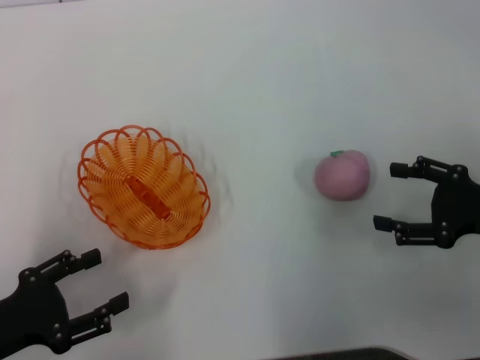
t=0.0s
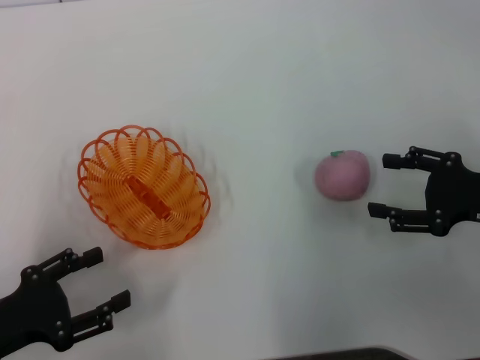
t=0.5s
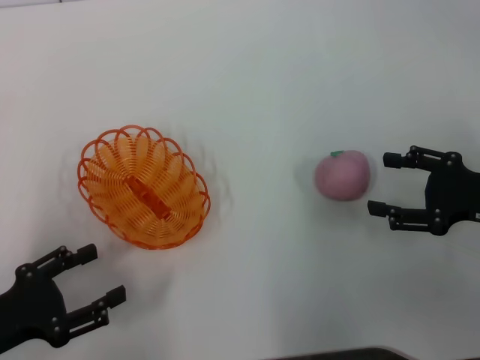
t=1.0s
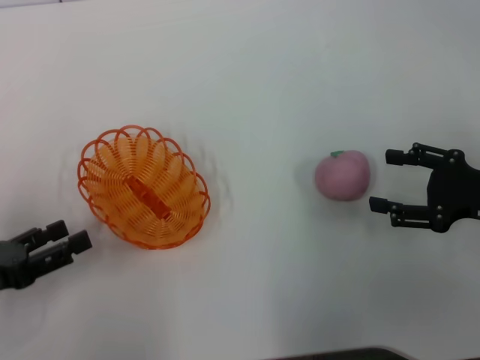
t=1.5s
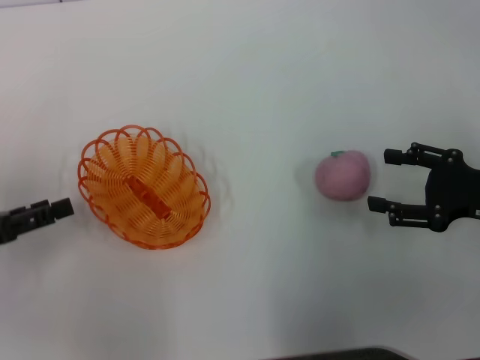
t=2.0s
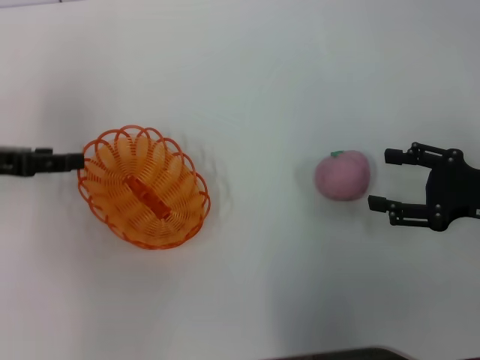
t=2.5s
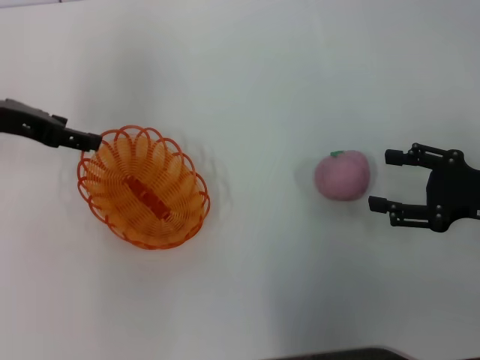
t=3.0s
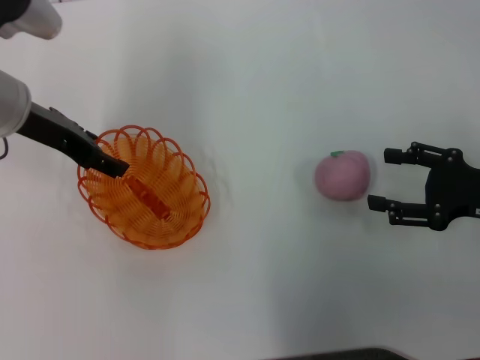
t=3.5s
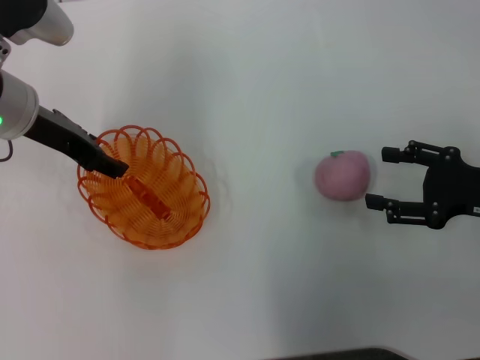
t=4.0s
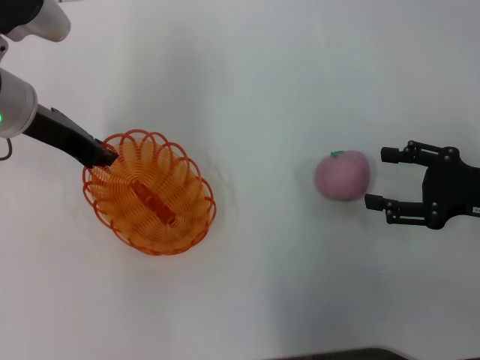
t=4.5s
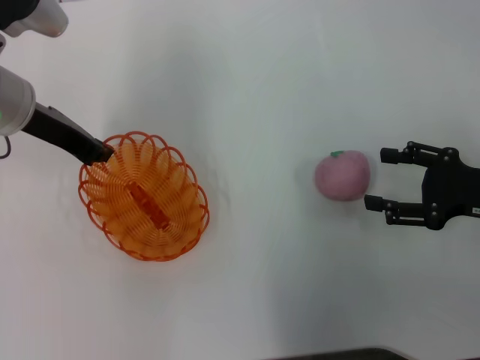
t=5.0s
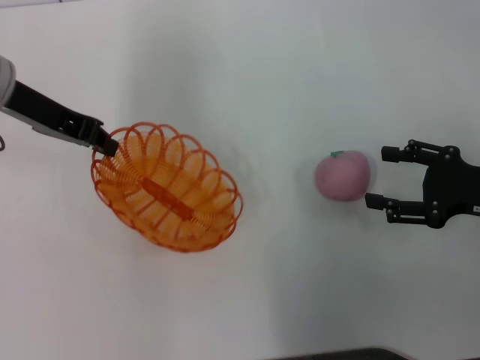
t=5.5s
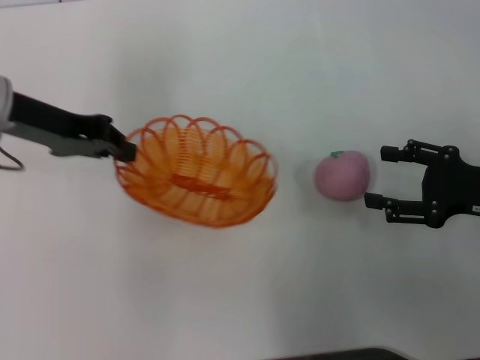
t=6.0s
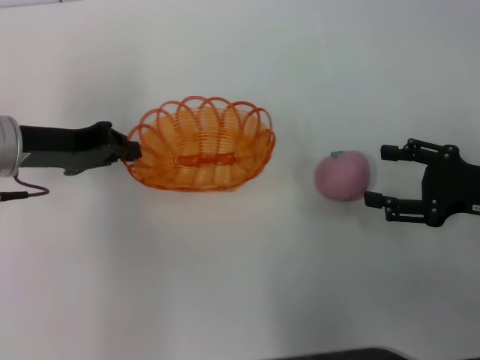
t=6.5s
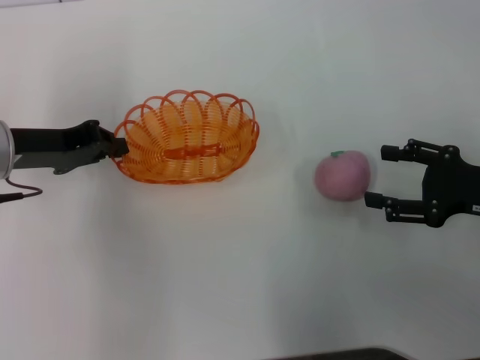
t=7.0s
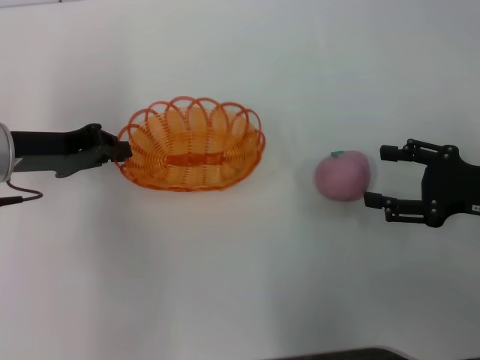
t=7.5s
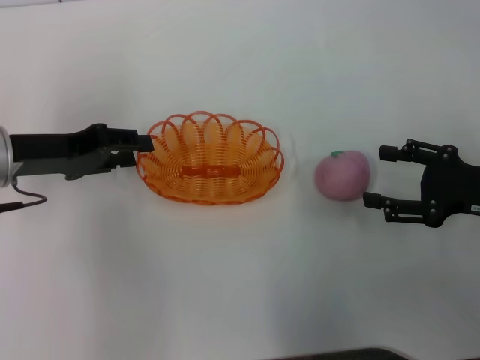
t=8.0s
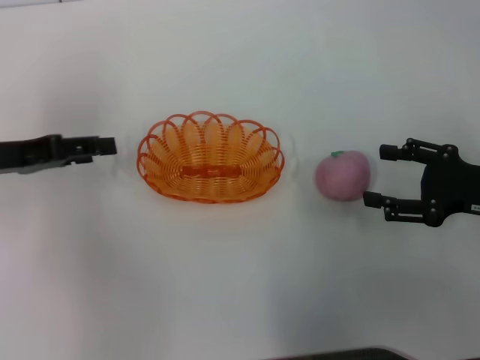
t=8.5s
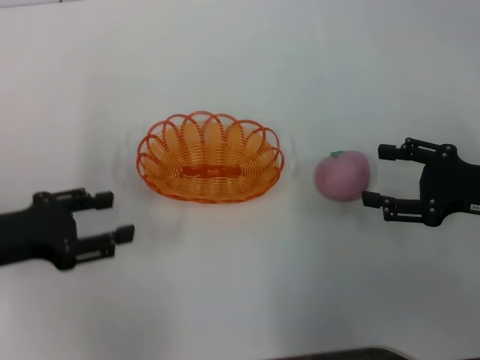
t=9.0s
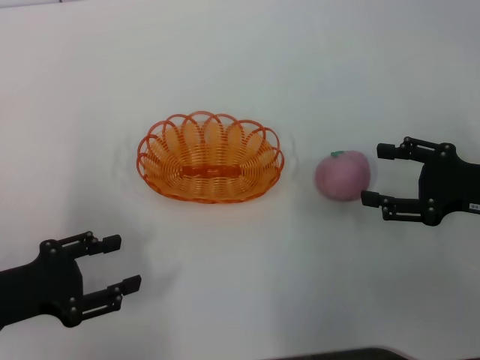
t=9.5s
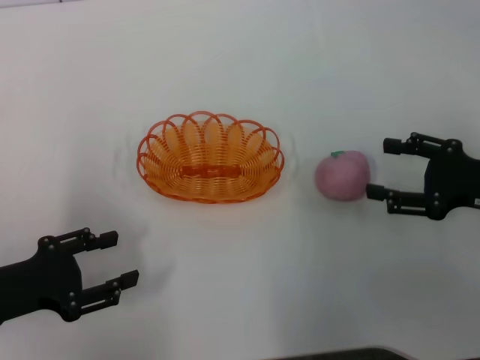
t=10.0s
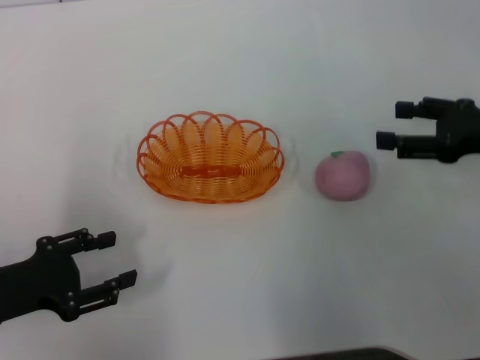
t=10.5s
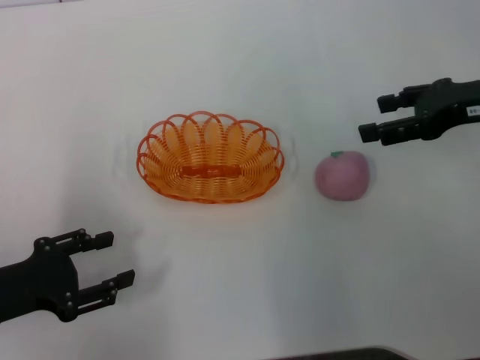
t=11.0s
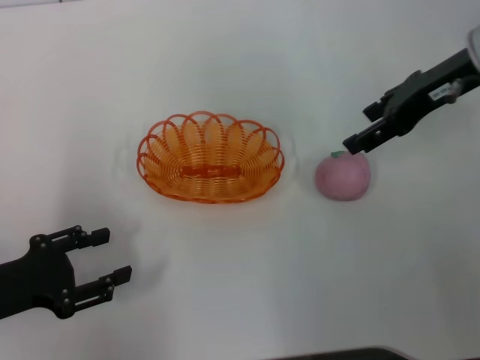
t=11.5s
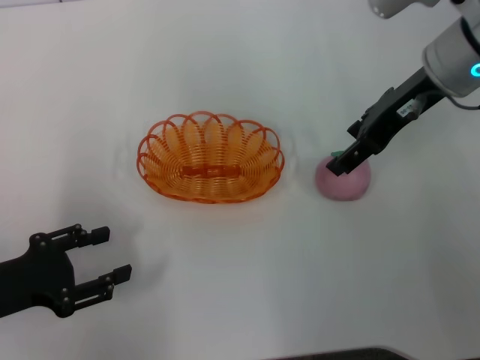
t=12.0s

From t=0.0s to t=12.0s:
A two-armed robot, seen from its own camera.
Step, from t=0.0s to t=5.5s: Pick up the basket with the left gripper.
Step, from t=6.0s to t=8.0s: Place the basket in the center of view with the left gripper.
From t=0.0s to t=2.0s: The left gripper travels forward by approximately 10 cm.
From t=2.0s to t=4.0s: The left gripper moves forward, to the right and upward, approximately 20 cm.
From t=4.0s to t=6.0s: The left gripper closes.
From t=6.0s to t=8.0s: The left gripper goes approximately 5 cm downward, and opens up.
From t=8.0s to t=10.0s: The left gripper shifts roughly 15 cm backward and downward, and opens its fingers.
From t=10.0s to t=12.0s: The right gripper moves forward, to the left and upward, roughly 20 cm.

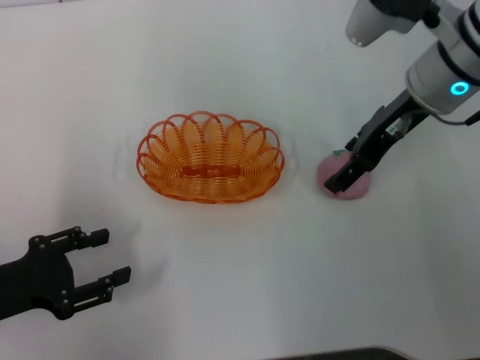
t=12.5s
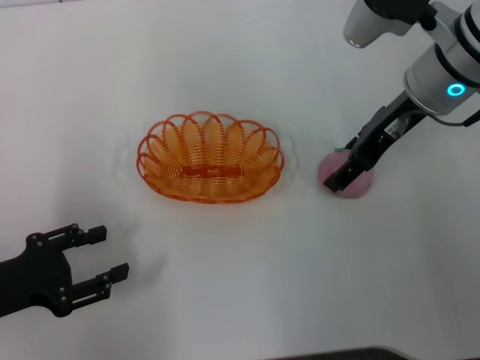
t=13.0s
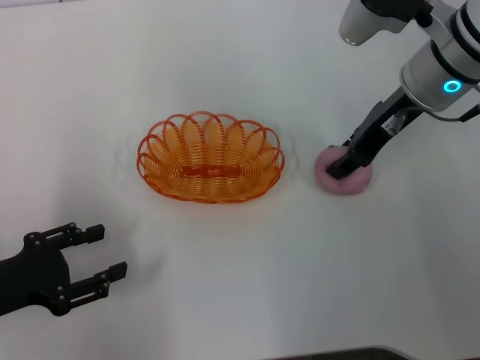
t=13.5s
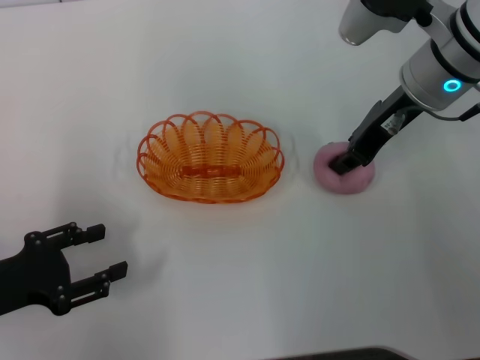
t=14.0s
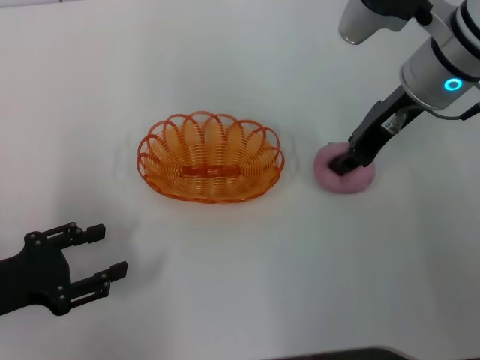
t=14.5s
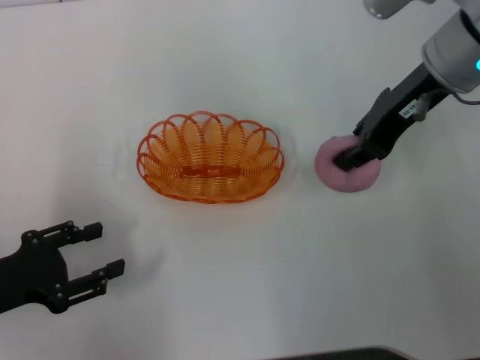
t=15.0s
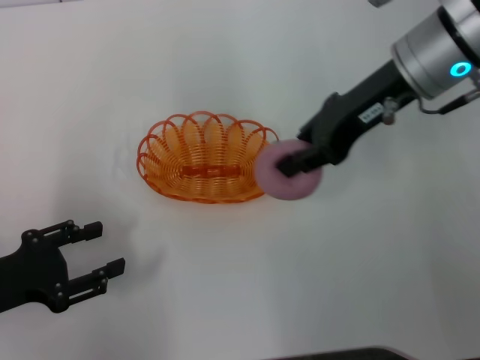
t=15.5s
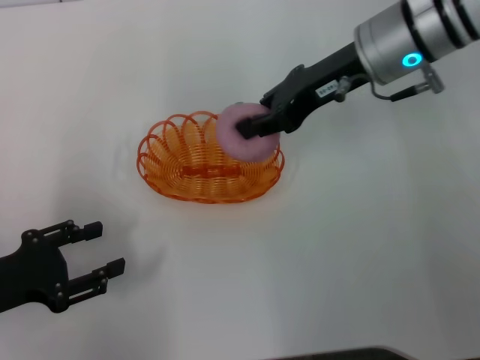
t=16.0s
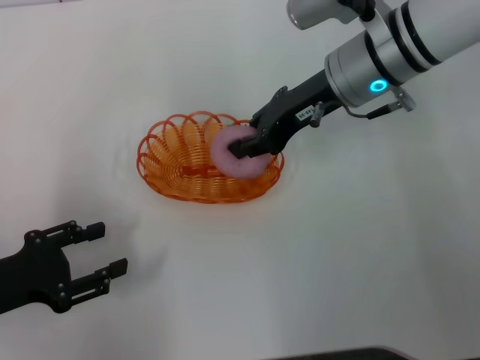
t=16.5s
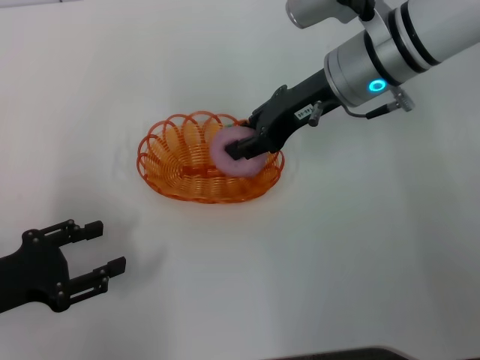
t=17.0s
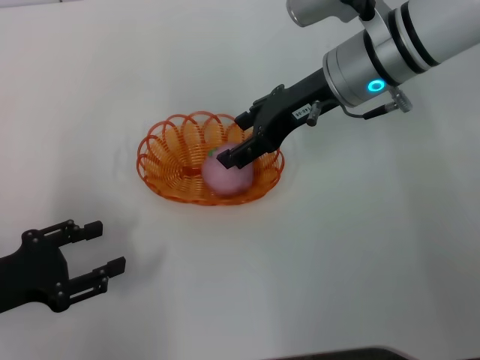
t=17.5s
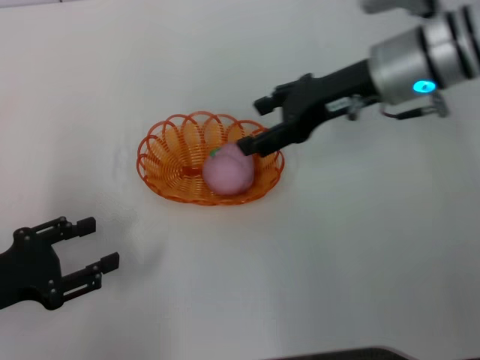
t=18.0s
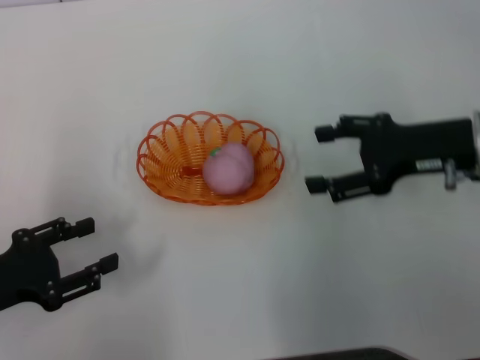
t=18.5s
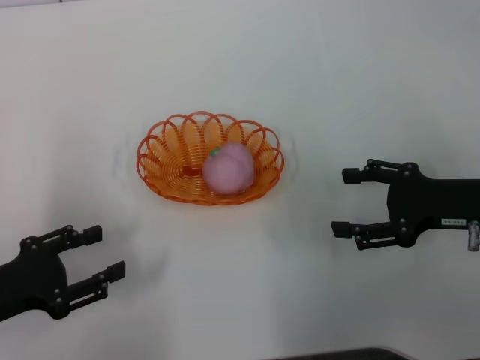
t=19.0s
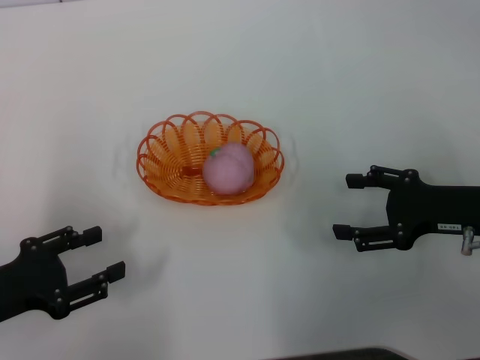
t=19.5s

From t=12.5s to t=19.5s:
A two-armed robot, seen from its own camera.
Step, from t=12.5s to t=15.0s: Pick up the peach with the right gripper.
Step, from t=15.5s to t=18.0s: Place the peach into the basket with the right gripper.
From t=12.5s to t=14.5s: The right gripper closes its fingers.
From t=16.0s to t=17.5s: The right gripper opens.
From t=17.5s to t=19.5s: The right gripper goes about 20 cm to the right, backward and downward.
